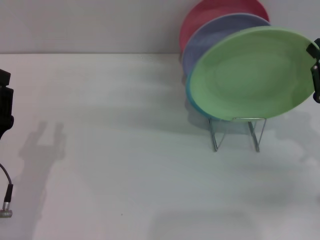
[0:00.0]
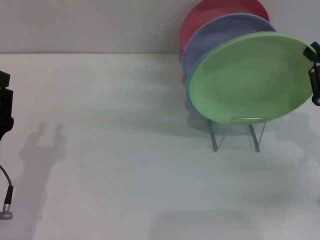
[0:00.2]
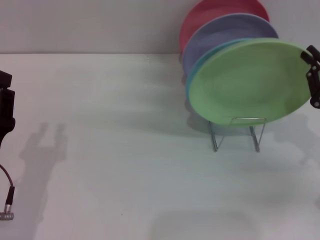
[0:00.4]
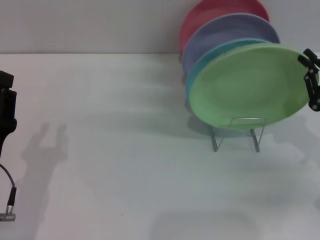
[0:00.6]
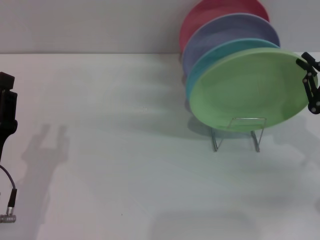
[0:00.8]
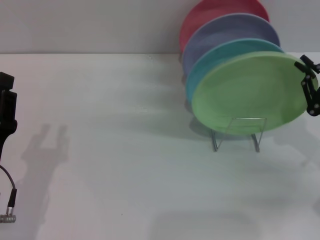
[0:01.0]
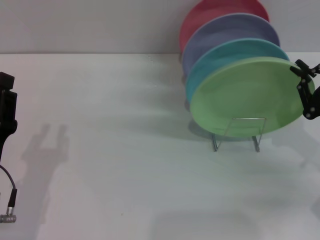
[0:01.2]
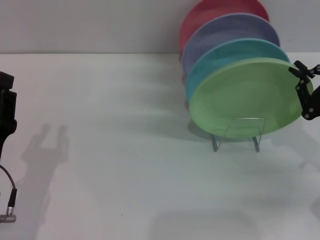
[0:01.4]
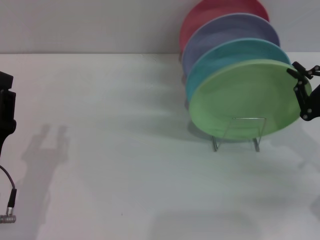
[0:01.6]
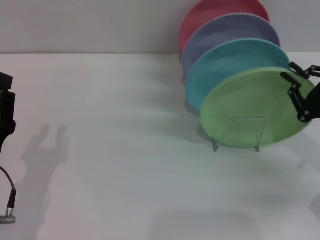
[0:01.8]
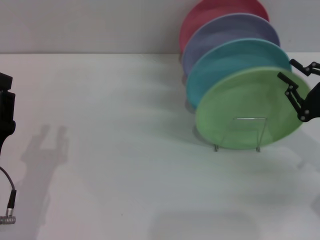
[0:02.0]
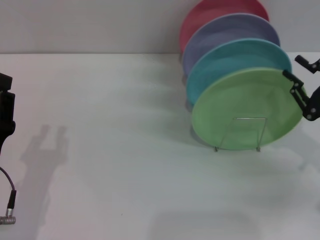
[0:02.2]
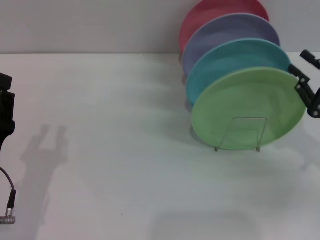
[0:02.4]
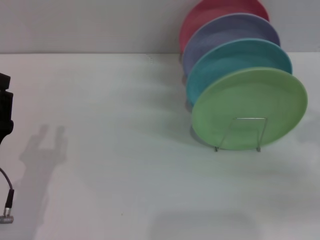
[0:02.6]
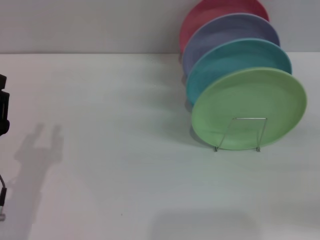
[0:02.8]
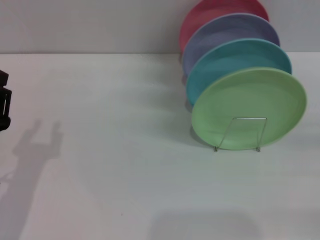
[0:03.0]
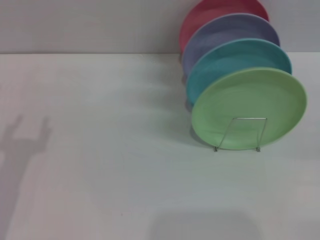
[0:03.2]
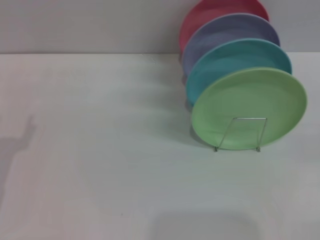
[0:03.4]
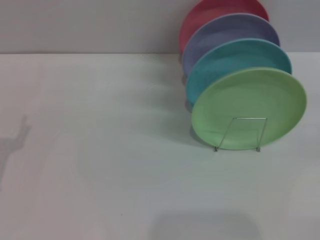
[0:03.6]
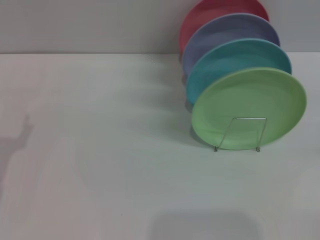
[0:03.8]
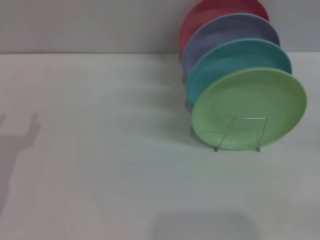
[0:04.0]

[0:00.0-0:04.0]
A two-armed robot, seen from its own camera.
Task of the whole recording: Grip the plate with one hand, pass it to the other, then set it on the shelf.
Step, 0:00.0 to 0:02.0: Place the plate on the shelf with the right gripper.
0:00.0 to 0:01.4: The grippers move only a little.
0:01.4 to 0:02.6: The right gripper opens.
0:02.6 to 0:04.0: The left gripper is displaced to the left by about 5 cm.

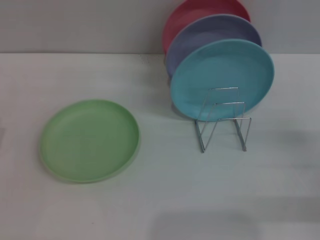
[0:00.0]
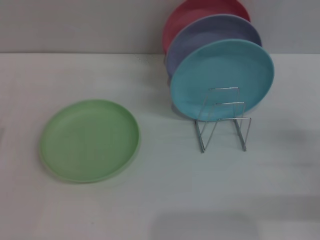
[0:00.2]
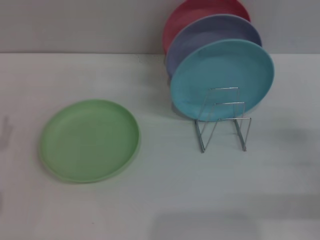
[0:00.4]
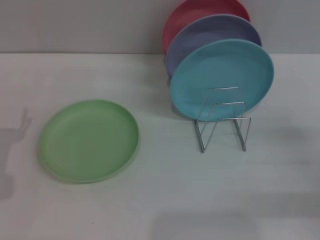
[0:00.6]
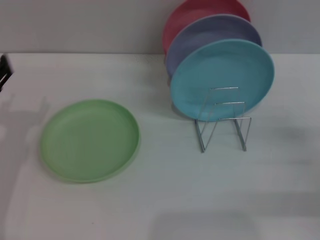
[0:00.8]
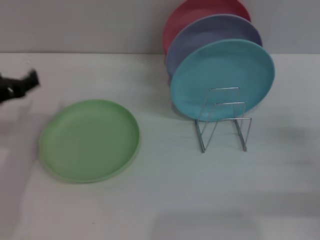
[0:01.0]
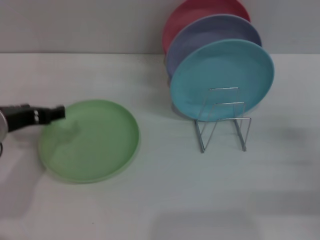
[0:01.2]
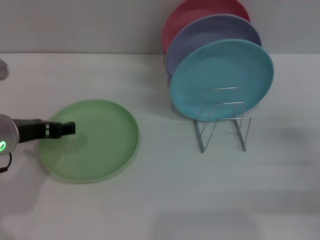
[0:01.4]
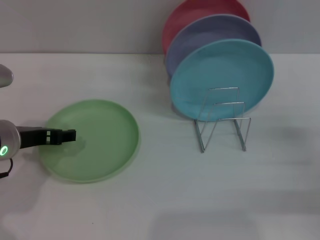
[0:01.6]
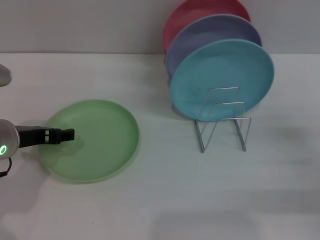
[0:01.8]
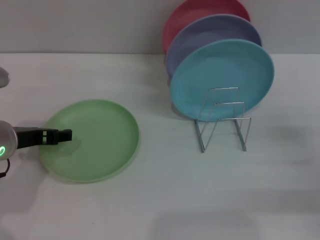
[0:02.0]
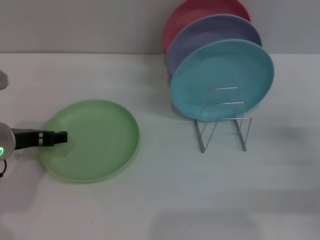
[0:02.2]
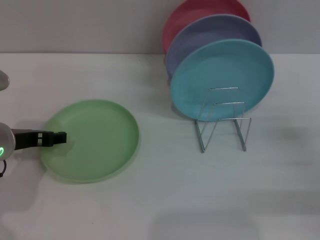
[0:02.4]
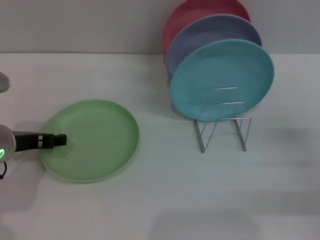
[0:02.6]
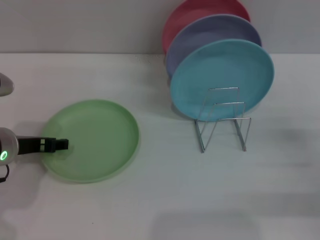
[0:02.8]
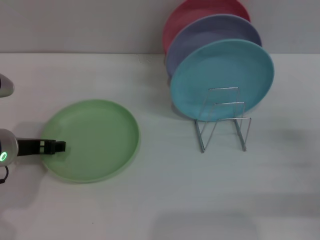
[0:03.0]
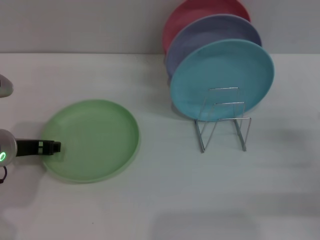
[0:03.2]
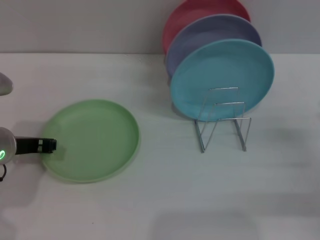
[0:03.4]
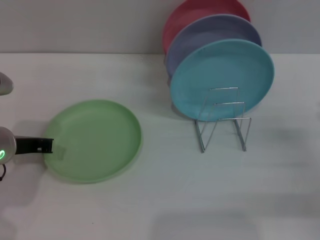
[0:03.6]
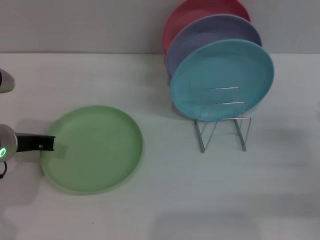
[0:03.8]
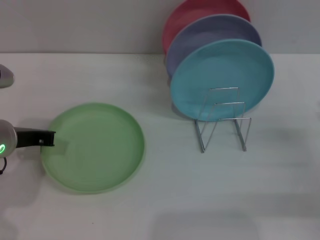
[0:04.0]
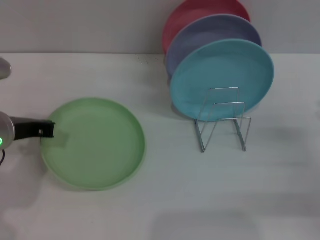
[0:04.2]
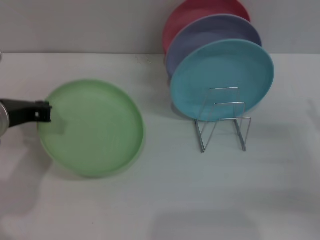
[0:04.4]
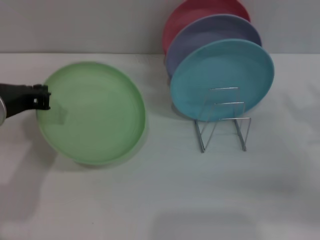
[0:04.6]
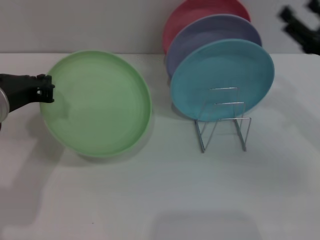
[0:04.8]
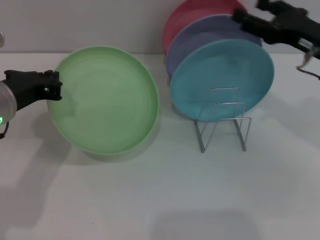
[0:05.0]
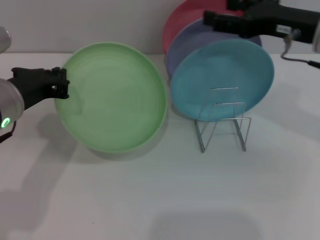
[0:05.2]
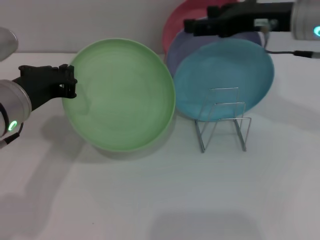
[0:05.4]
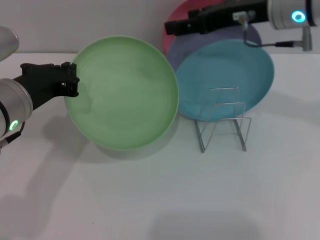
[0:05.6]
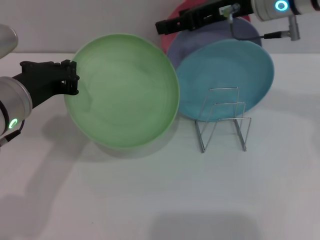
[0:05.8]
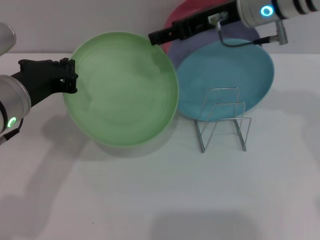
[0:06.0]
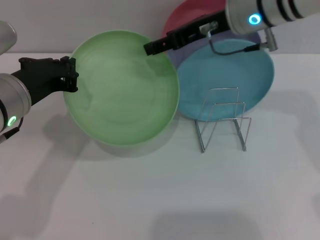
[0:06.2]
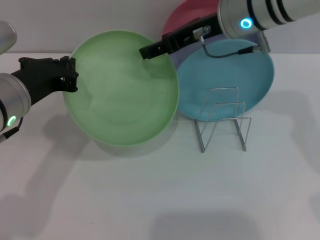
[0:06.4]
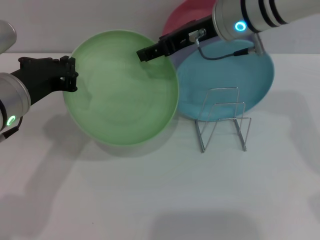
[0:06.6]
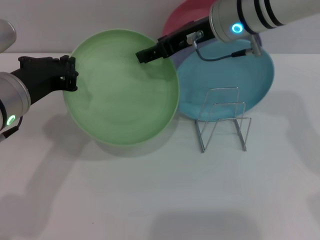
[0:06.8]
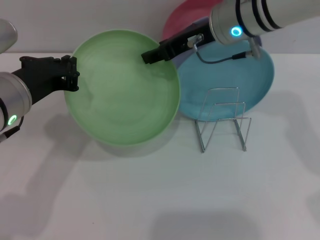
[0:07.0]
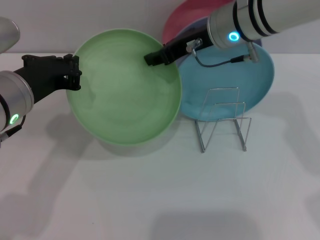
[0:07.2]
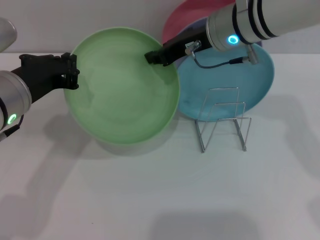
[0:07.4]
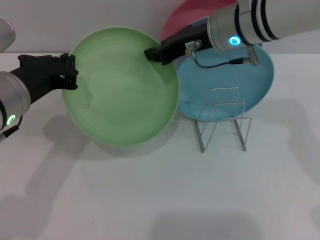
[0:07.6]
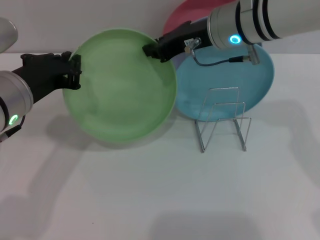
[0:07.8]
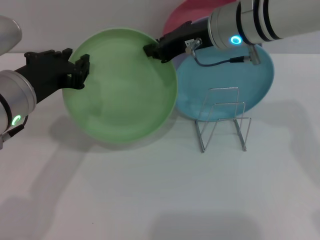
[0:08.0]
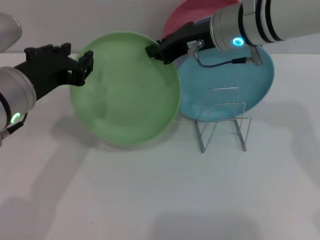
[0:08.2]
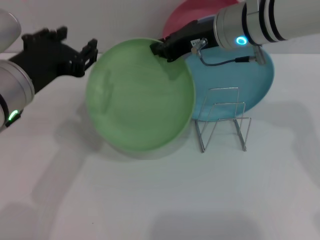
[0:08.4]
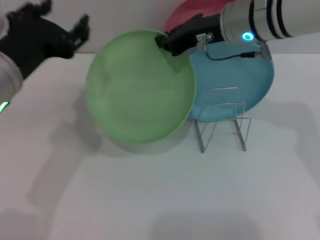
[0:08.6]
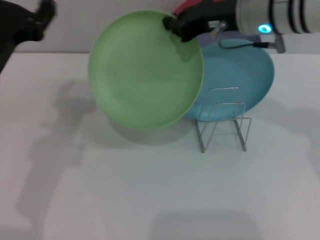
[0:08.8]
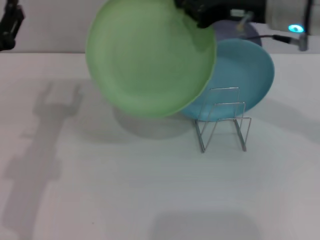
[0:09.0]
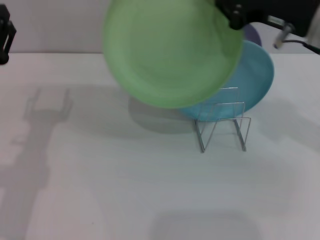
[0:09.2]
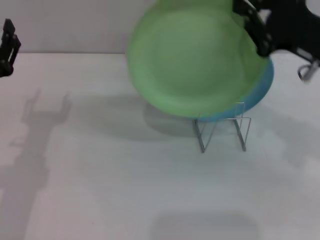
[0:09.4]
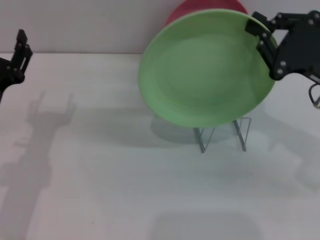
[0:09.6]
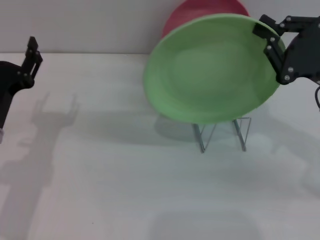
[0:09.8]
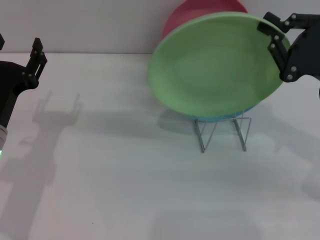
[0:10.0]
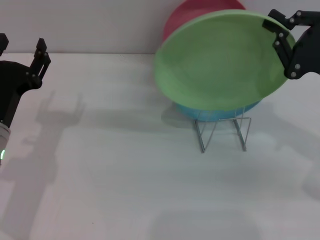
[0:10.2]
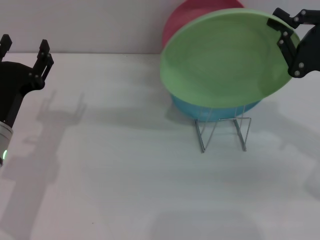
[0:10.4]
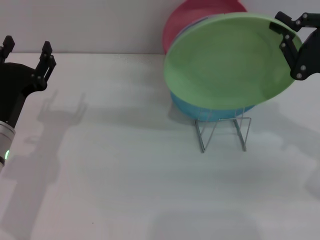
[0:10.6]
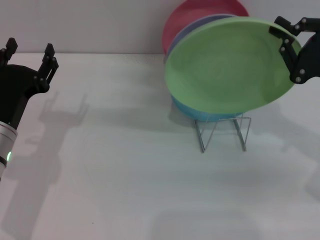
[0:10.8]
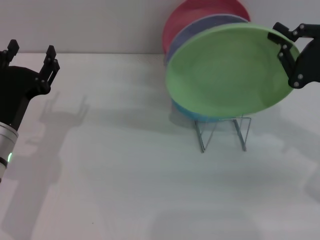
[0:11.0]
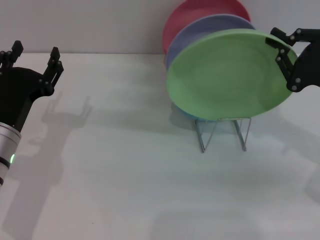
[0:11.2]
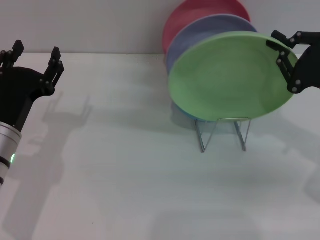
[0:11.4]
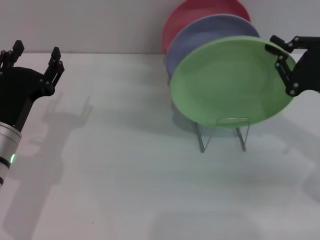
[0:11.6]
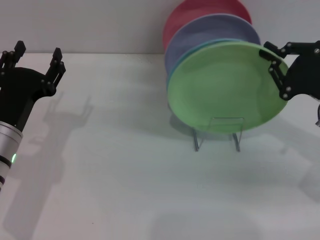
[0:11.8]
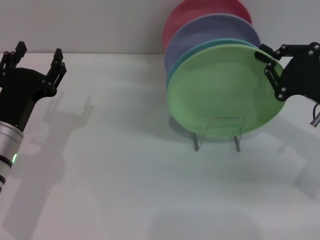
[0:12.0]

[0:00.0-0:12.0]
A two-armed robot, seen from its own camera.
Task of the whole recording: Grip the plate with one hand, pass it to the other, then set it on the shelf.
Step, 0:00.0 to 0:04.6: Pick up the plate with the left gripper.
Step, 0:04.8 to 0:08.2: Pass the plate from the left gripper to the right gripper.
0:00.0 to 0:01.6: The left gripper travels to the right, upward and forward by some 15 cm.
0:01.6 to 0:03.0: The grippers stay close to where they were, moving slightly.
0:03.0 to 0:04.4: The left gripper moves upward, roughly 5 cm, and closes.
0:04.4 to 0:06.0: The right gripper shifts about 30 cm to the left, upward and forward.
0:06.0 to 0:07.6: The right gripper closes its fingers.
0:07.6 to 0:09.0: The left gripper ends up about 5 cm from where it was, and opens; the right gripper moves to the right, approximately 5 cm.
0:09.0 to 0:10.4: The right gripper goes approximately 15 cm to the right, downward and backward, while the left gripper moves downward, about 5 cm.
0:10.4 to 0:12.0: The grippers make only small movements.

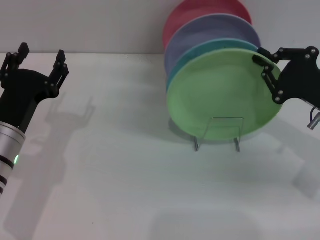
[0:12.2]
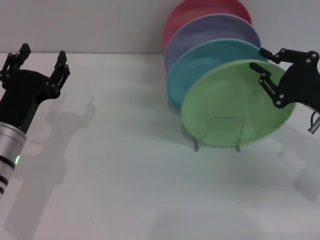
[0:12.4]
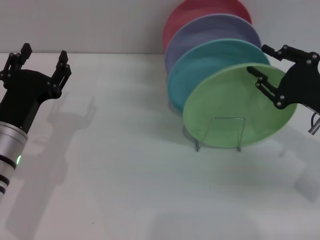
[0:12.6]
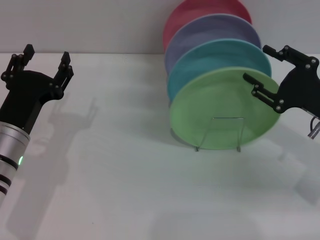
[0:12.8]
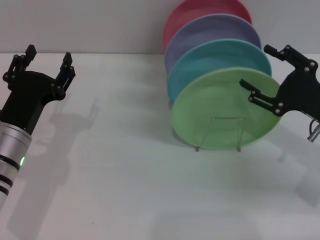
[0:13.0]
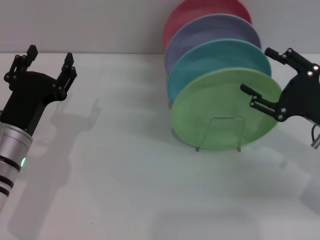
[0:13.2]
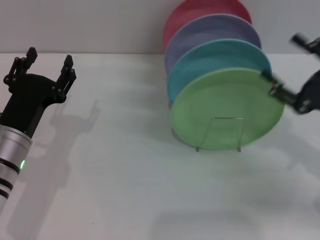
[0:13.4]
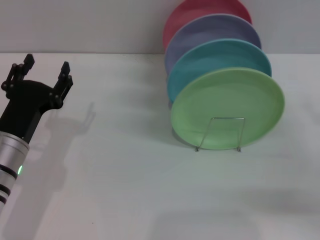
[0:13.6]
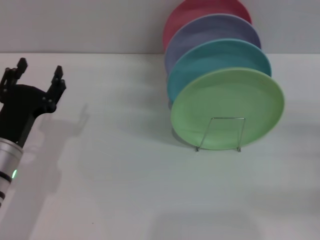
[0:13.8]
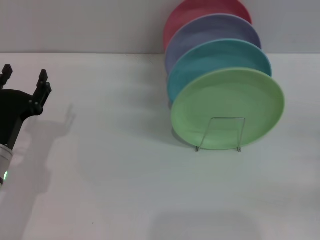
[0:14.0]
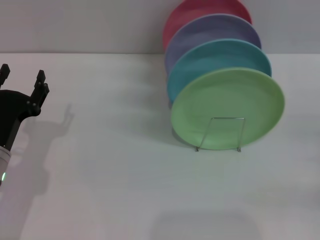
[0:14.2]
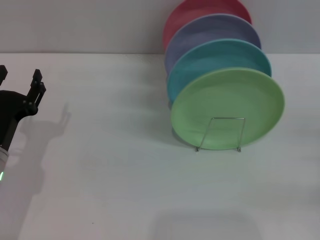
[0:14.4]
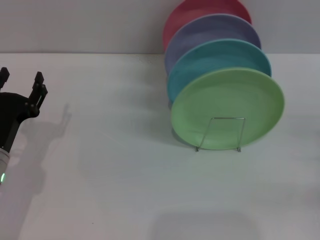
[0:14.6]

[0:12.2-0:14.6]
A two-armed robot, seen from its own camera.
Task of the whole recording: Grip the plate with one hand, pass it to the other, then set it on the shelf.
0:12.2 to 0:13.4: The right gripper opens up.
0:13.4 to 0:14.6: The left gripper ends up some 5 cm from where it was, while the right gripper shifts some 10 cm to the right and downward.
